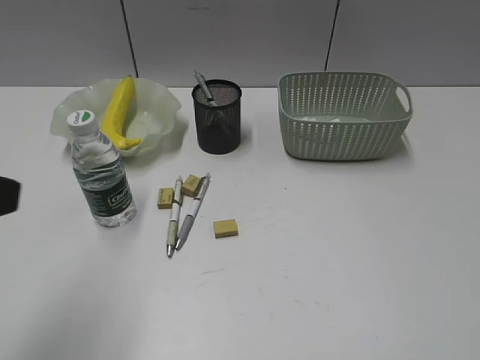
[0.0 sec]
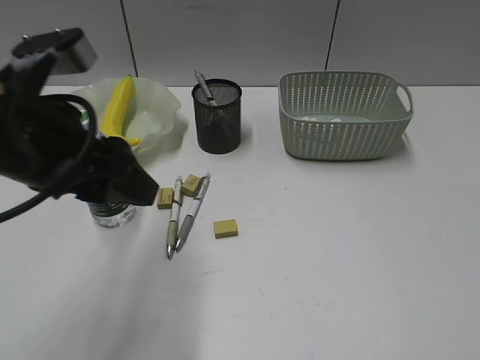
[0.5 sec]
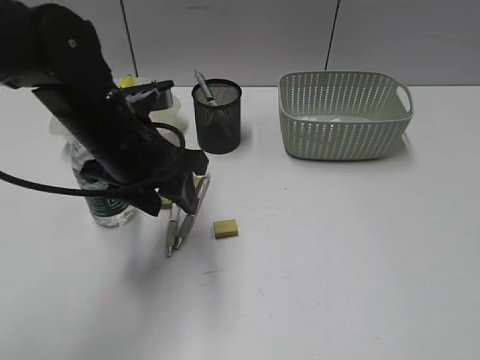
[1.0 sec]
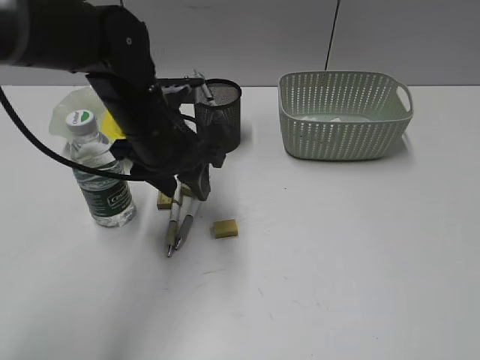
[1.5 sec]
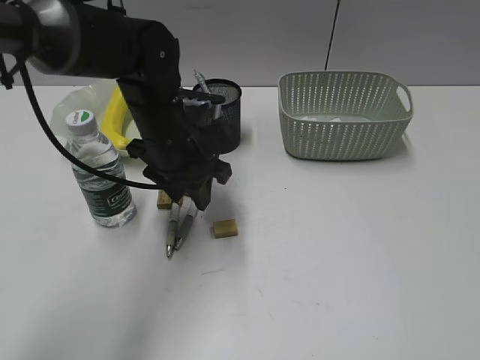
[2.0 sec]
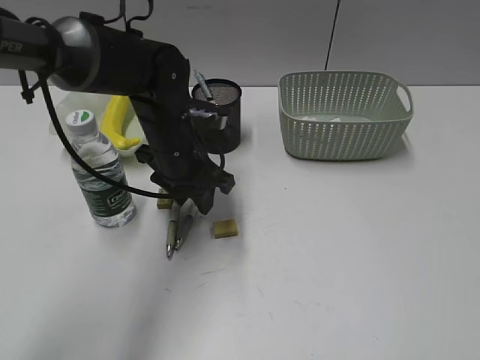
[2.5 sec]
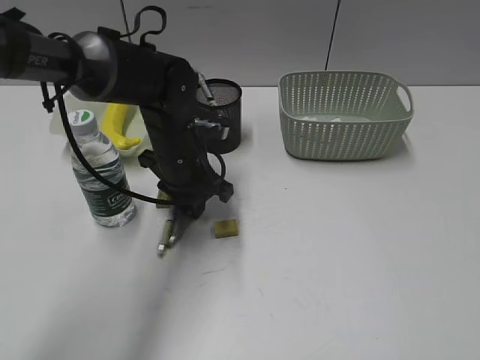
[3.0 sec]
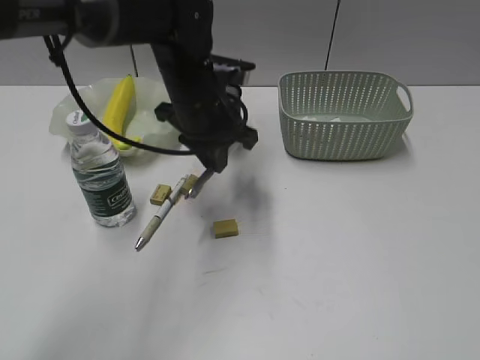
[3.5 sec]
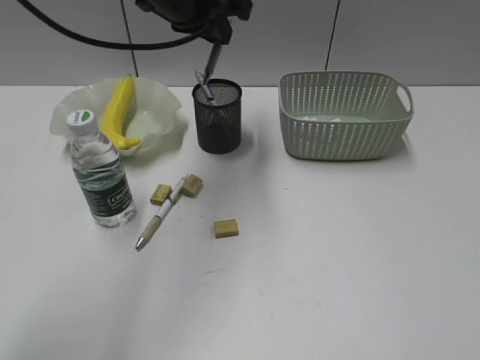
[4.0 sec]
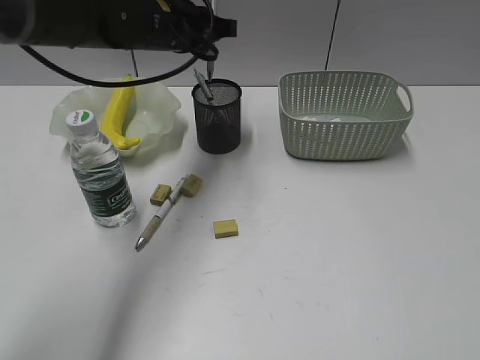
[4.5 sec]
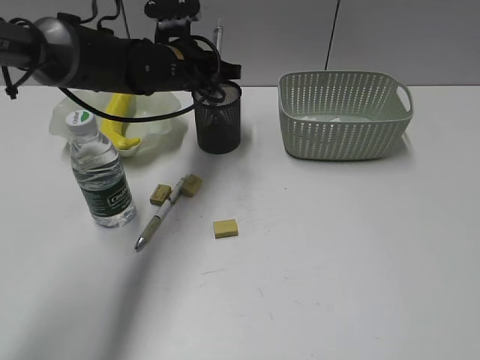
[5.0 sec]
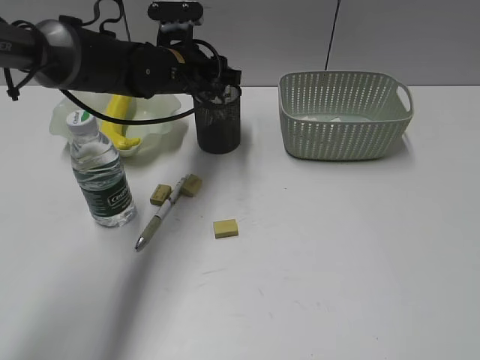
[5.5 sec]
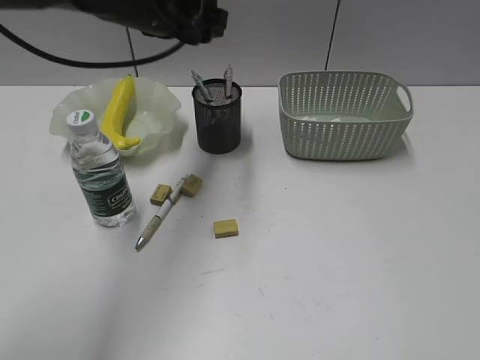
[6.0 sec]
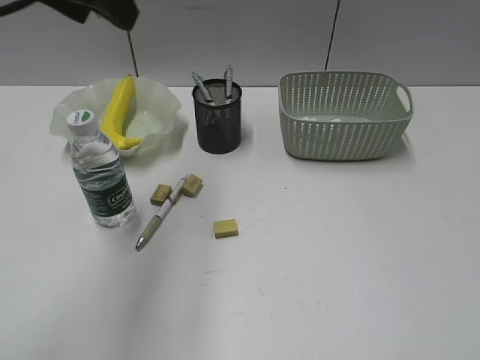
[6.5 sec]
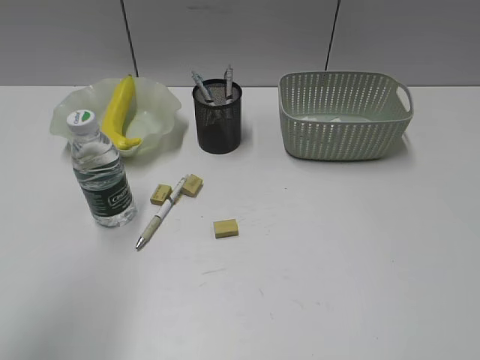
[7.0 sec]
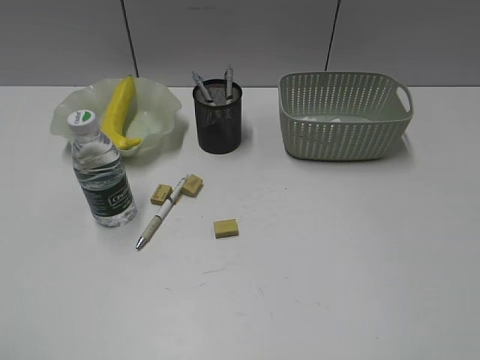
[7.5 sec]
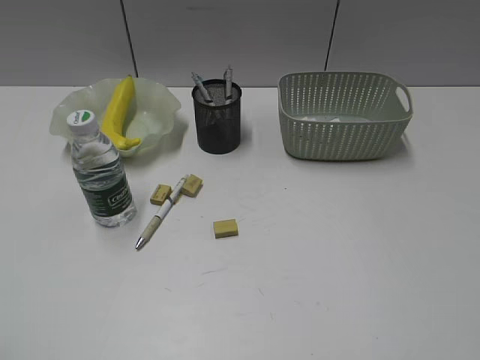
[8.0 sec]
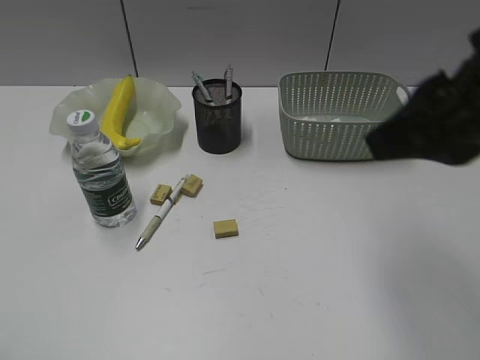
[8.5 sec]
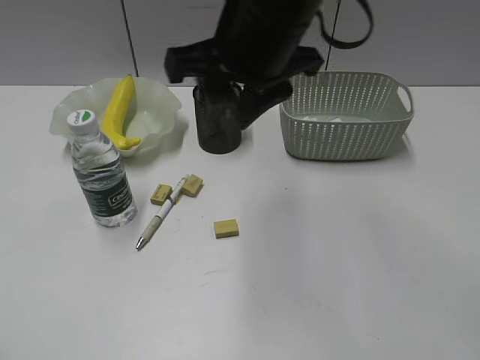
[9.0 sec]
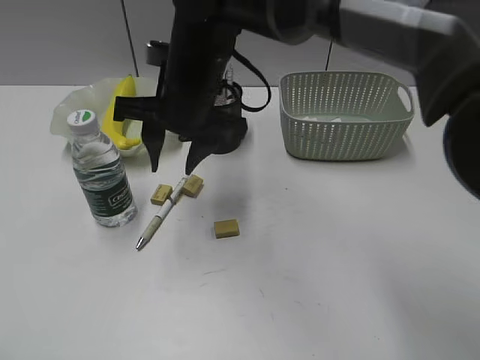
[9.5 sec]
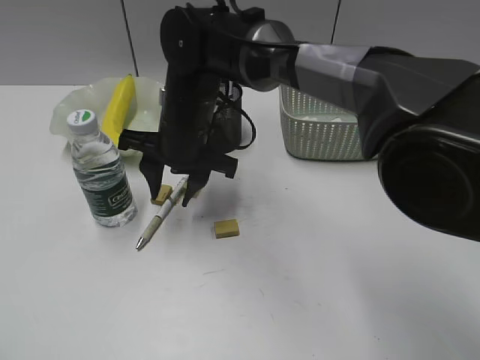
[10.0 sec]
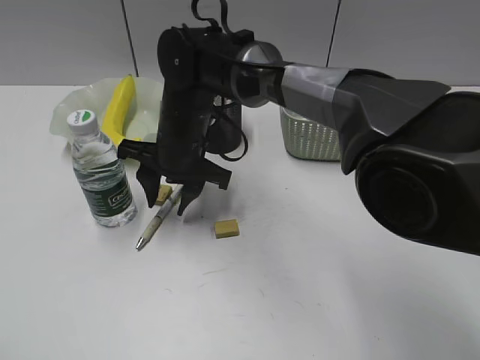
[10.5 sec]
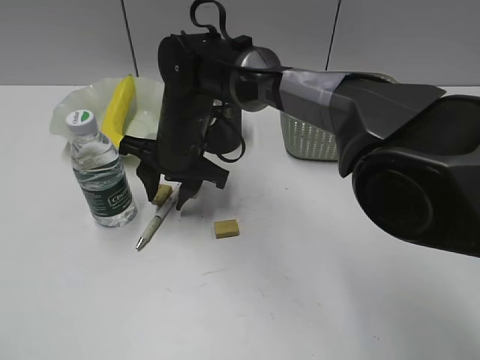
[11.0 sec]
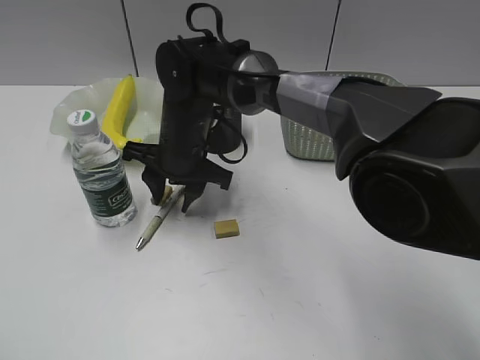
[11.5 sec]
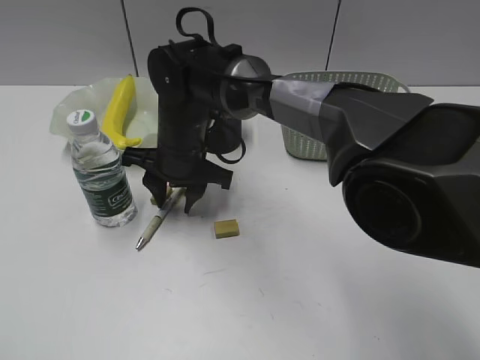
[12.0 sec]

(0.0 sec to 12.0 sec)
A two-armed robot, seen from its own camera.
Step, 0.0 sec - 3.0 sec: Grasp the gray pen with left gripper.
Step, 3.5 sec - 5.5 sec: Place the gray pen in pen holder with left gripper.
0.0 sec - 2.0 sec: The left gripper moves forward, to the right and downward, approximately 35 cm.
2.0 sec - 4.0 sec: The left gripper is displaced upward by about 15 cm, and closes.
4.0 sec - 6.0 sec: The left gripper opens up.
6.0 sec - 8.0 sec: The left gripper is displaced backward and to the left by about 50 cm.
8.0 sec - 10.0 sec: The right gripper goes approximately 50 cm to the left, forward and downward.
10.0 sec - 12.0 sec: There are only small adjustments of the grippers.

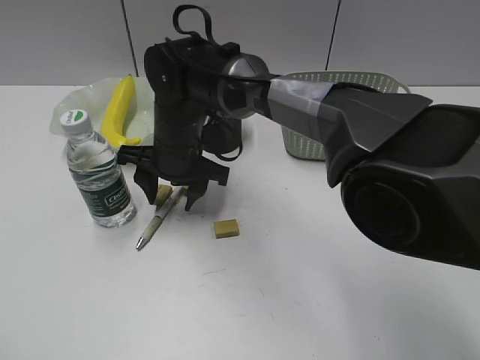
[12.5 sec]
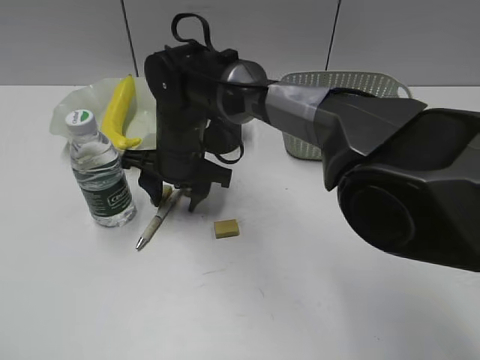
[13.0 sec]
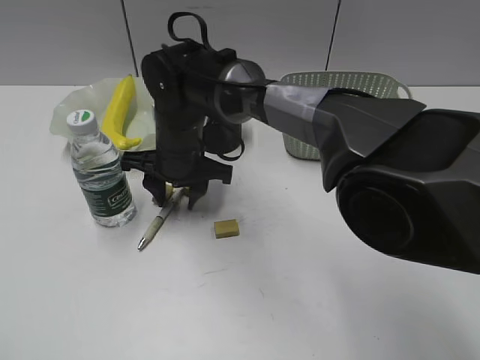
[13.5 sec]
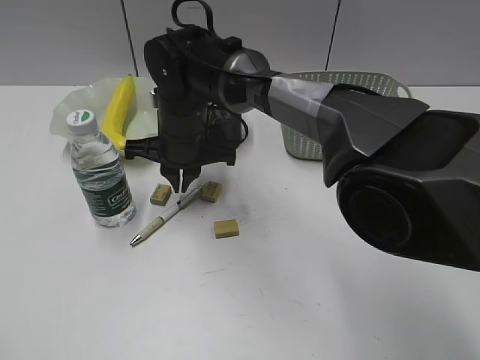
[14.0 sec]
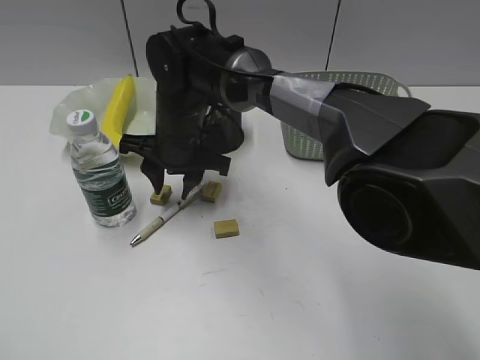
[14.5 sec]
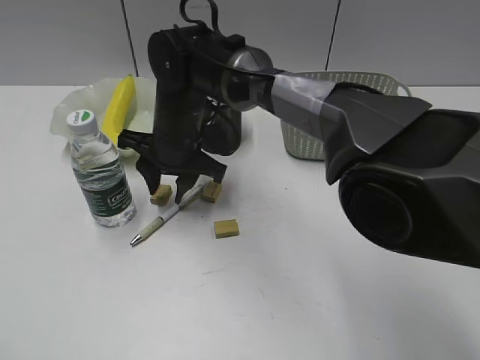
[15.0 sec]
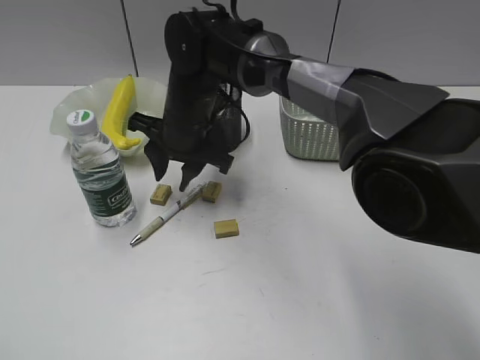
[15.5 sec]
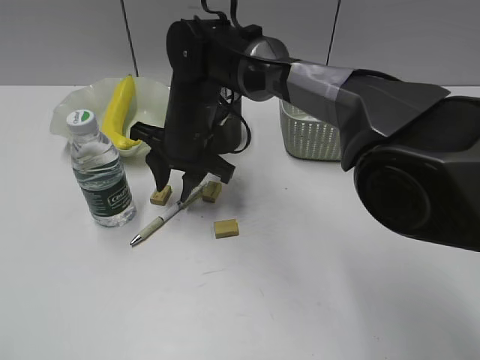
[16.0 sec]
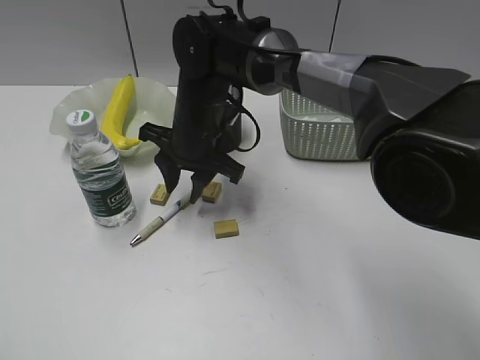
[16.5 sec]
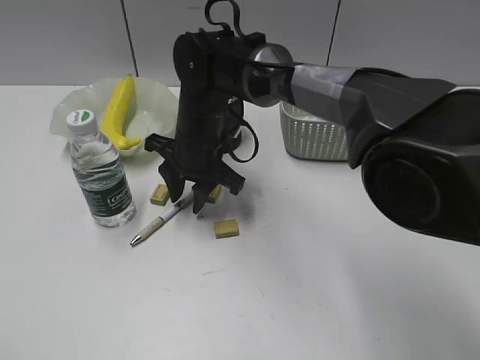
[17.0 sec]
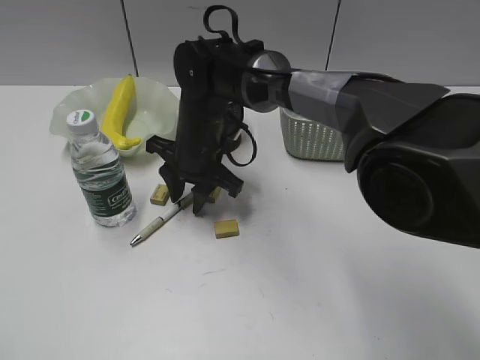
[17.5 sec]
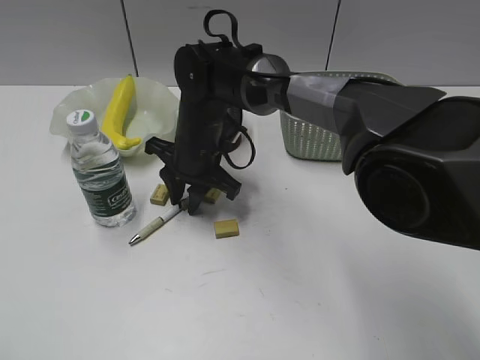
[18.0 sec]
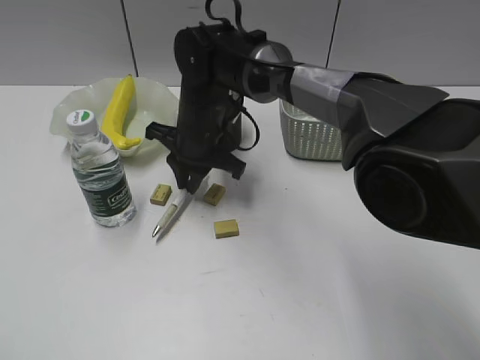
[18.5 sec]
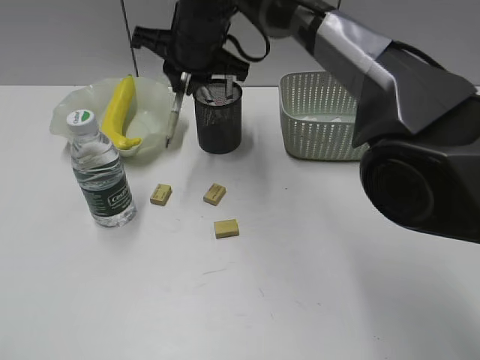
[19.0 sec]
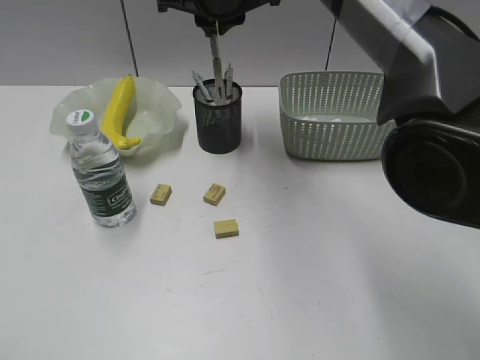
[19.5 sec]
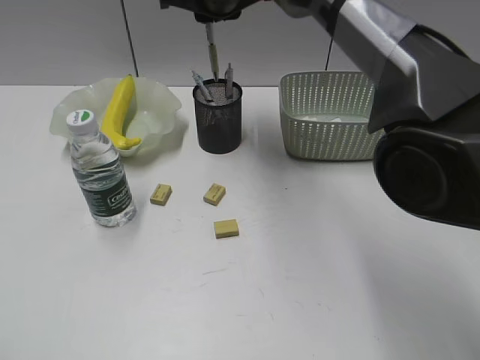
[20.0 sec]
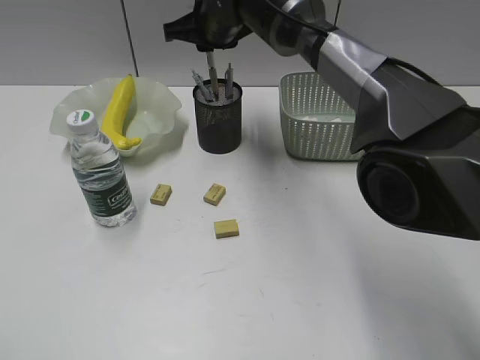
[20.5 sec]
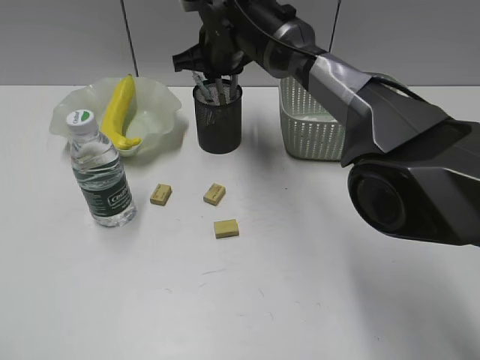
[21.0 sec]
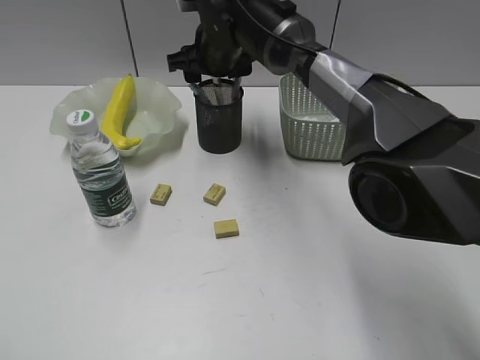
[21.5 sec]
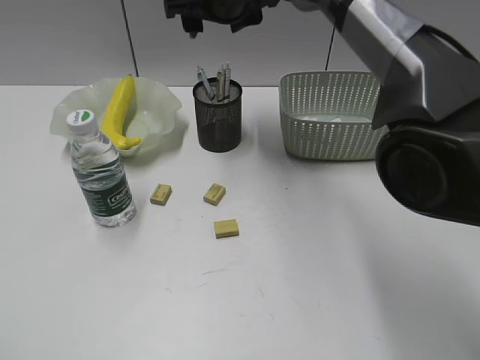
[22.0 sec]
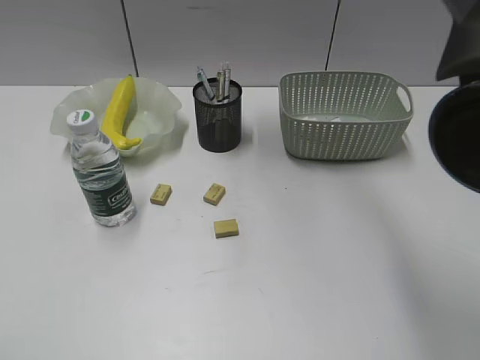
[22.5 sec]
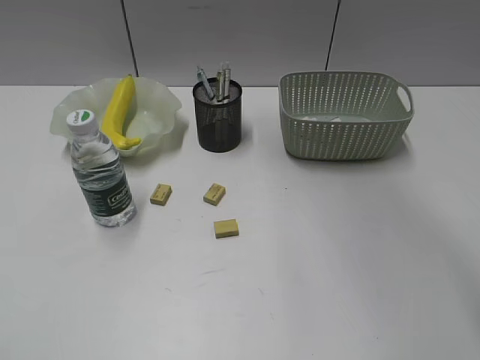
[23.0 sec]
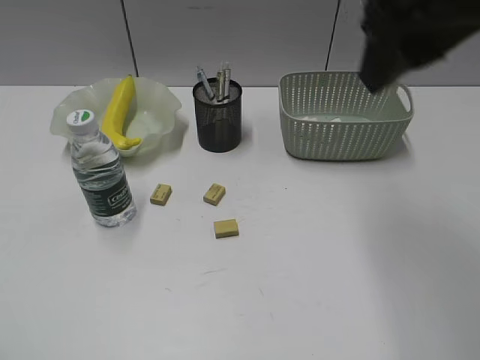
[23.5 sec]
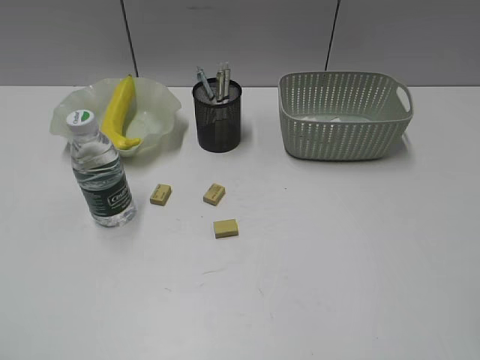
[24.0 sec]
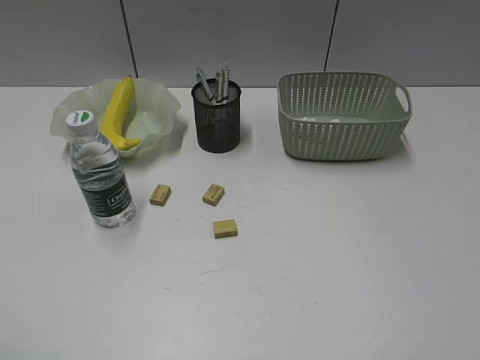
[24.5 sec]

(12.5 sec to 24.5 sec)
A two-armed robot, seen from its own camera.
Step, 12.5 sec - 18.0 sec: Grasp the yellow pen with right gripper.
Step, 18.5 sec - 21.5 sec: Place the yellow pen in pen holder with right gripper.
12.5 sec - 14.5 sec: The right gripper closes, then reopens.
14.5 sec - 16.5 sec: The grippers stay close to where they were, moving slightly.
16.5 sec - 18.5 sec: The right gripper closes up.
18.5 sec - 20.5 sec: The right gripper shifts some 15 cm upward and forward.
20.5 sec - 22.5 sec: The right gripper travels upward and backward by approximately 15 cm, and opens its fingers.
22.5 sec - 24.5 sec: The right gripper heads backward and to the right, covering approximately 50 cm.

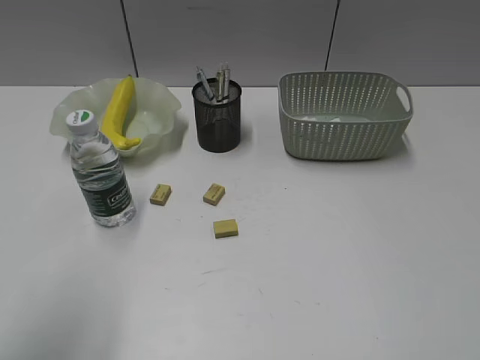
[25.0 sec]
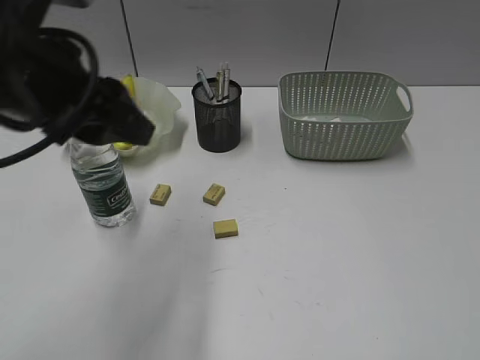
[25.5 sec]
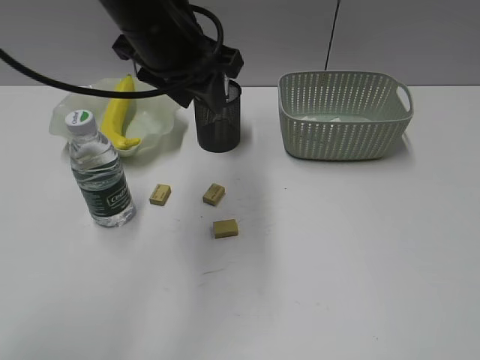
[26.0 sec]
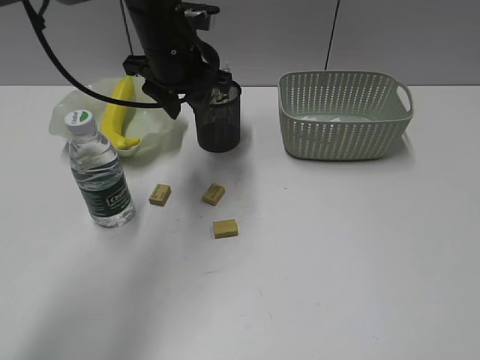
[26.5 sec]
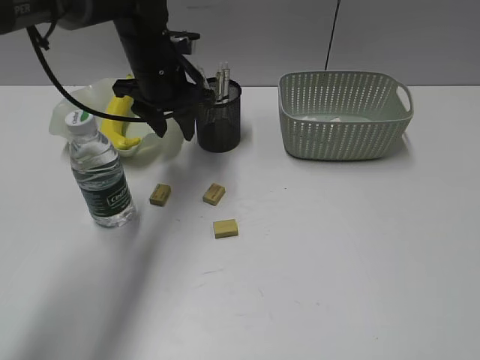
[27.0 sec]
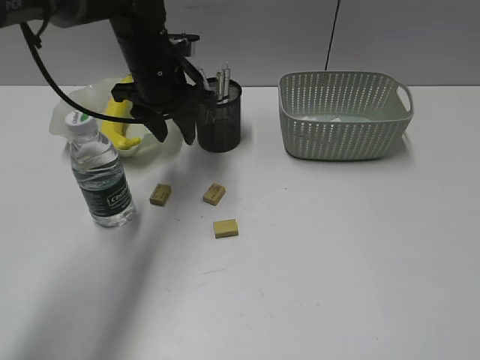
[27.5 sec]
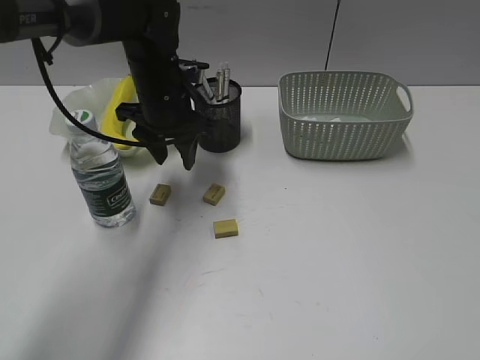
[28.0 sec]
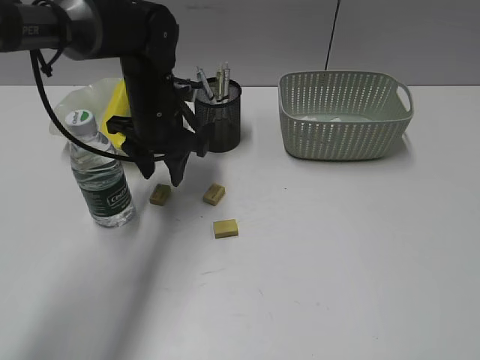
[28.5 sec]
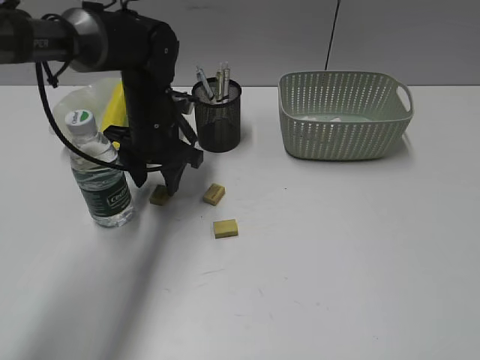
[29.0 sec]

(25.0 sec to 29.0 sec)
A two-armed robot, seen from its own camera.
25.0 sec - 27.0 sec: The left gripper shifts roughly 40 cm forward and to the right.
27.0 sec - 29.0 sec: The left gripper is displaced downward by about 5 cm.
